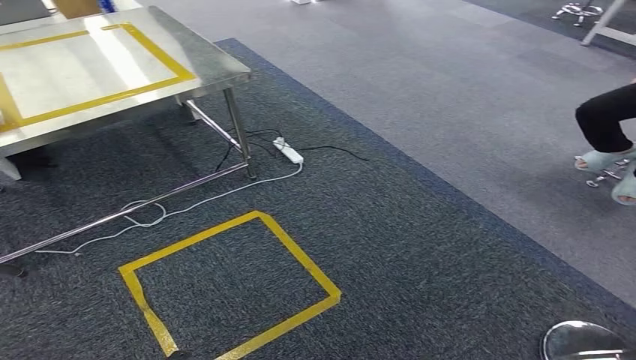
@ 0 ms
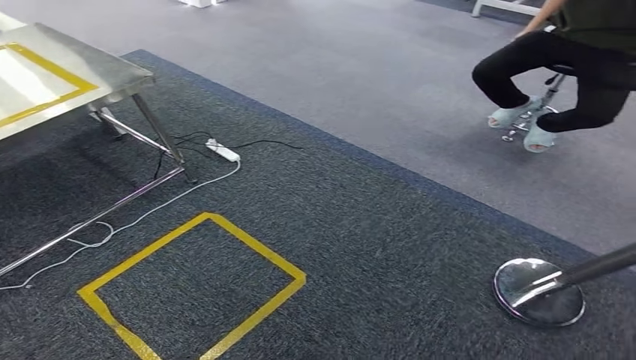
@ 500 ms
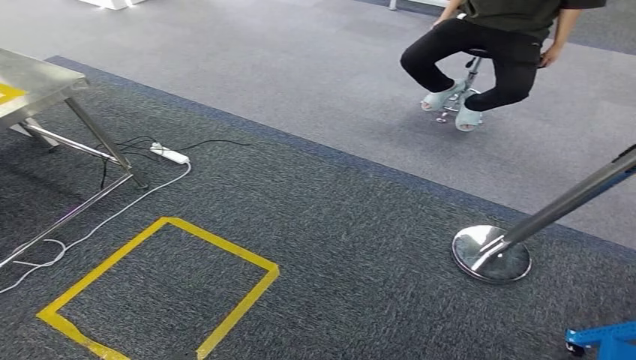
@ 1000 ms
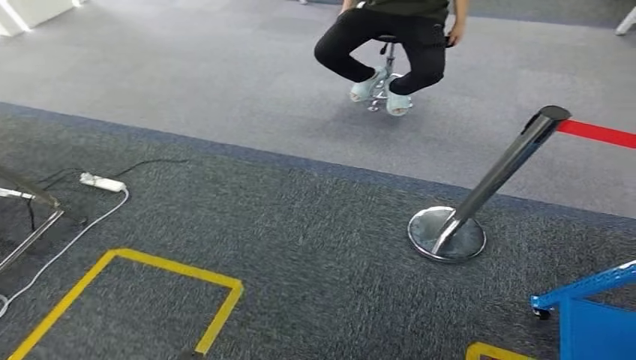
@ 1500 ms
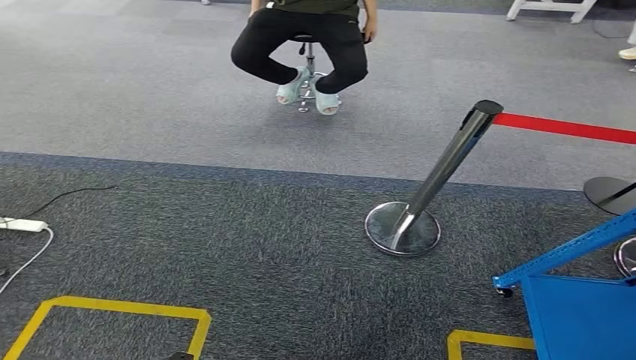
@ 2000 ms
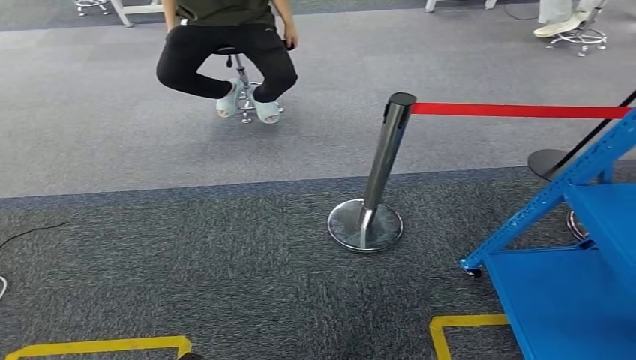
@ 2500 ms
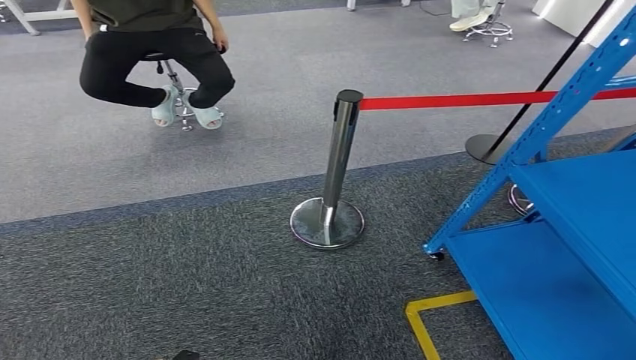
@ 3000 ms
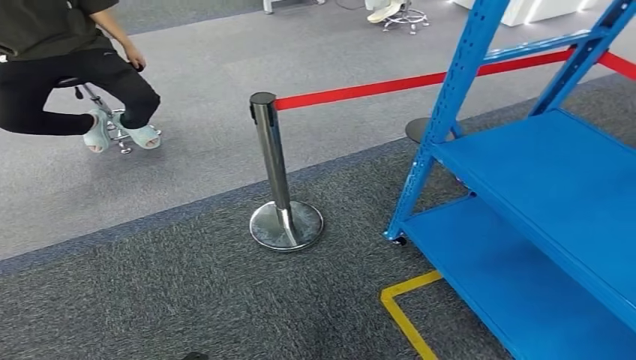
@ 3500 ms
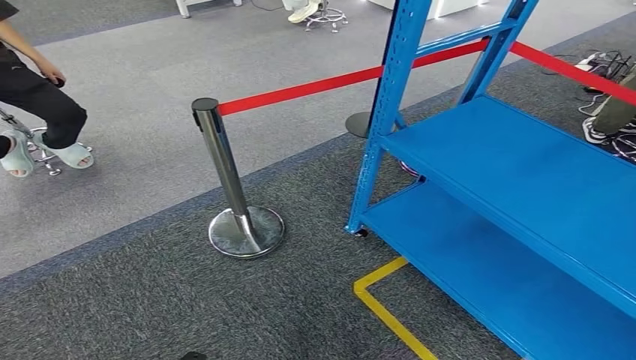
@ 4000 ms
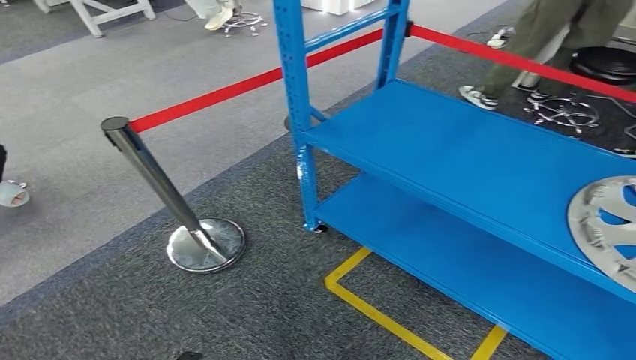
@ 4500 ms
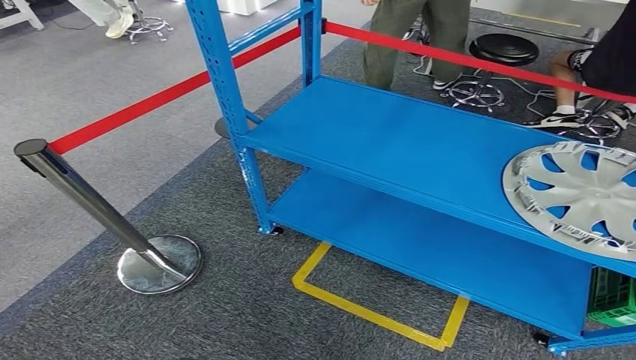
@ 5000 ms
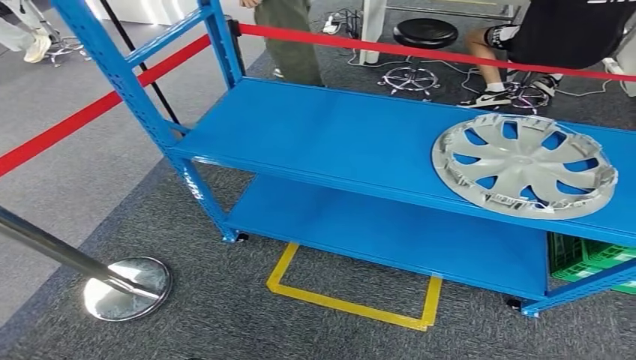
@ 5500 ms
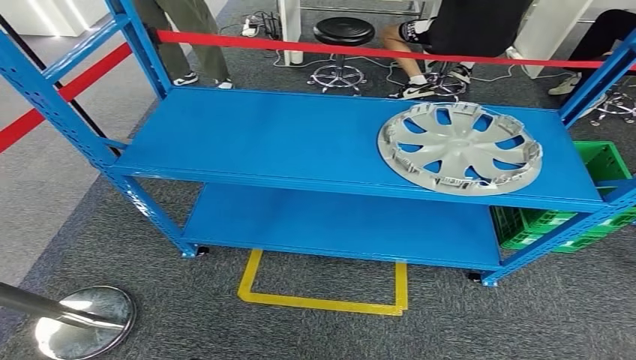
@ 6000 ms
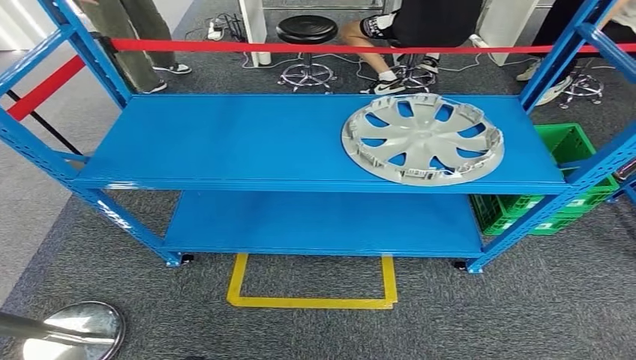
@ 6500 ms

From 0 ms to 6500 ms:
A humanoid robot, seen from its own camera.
Step, from 0 ms to 6500 ms: Move to the initial position at the workbench.
